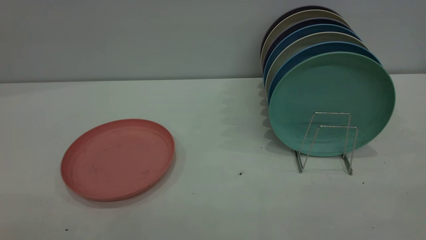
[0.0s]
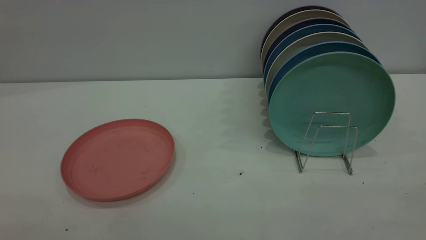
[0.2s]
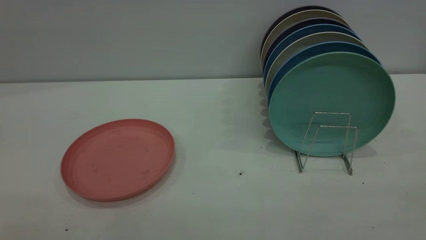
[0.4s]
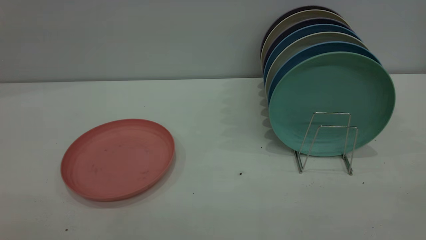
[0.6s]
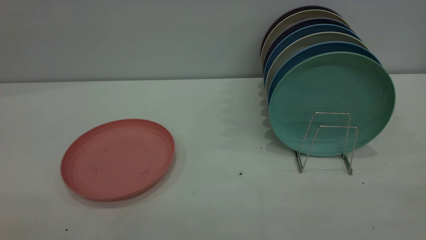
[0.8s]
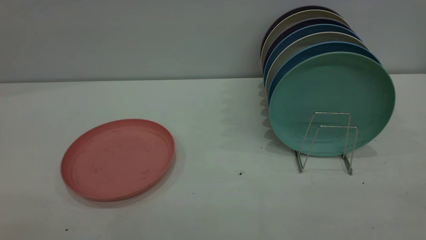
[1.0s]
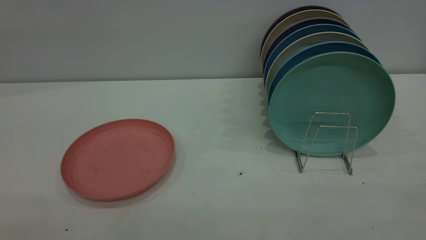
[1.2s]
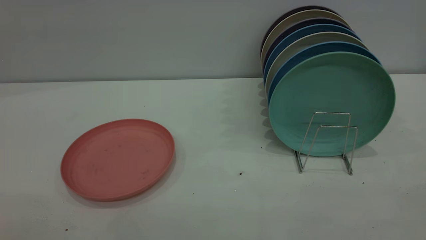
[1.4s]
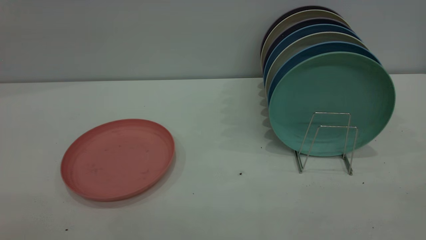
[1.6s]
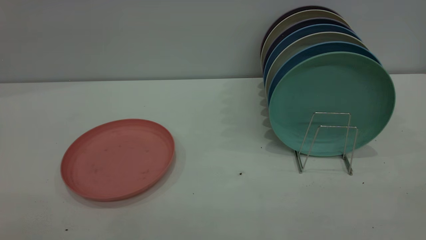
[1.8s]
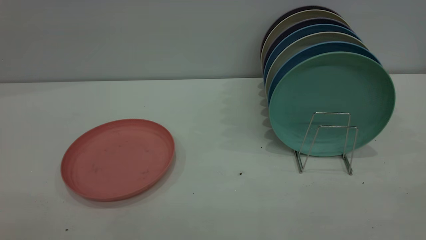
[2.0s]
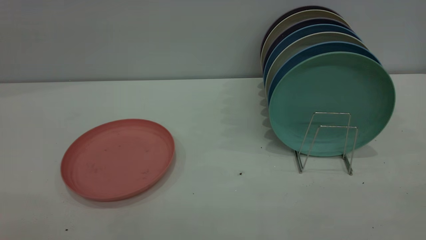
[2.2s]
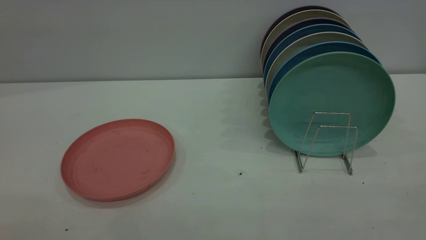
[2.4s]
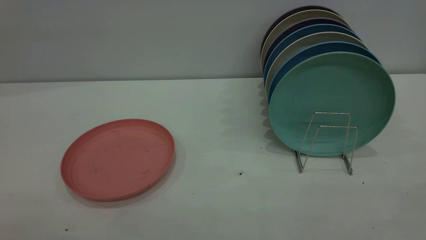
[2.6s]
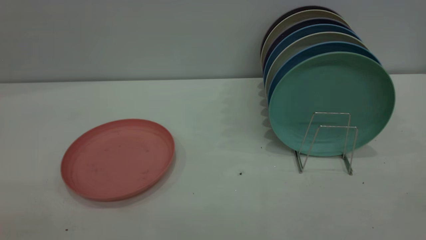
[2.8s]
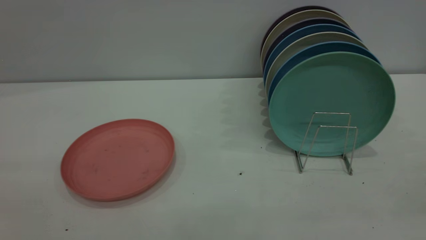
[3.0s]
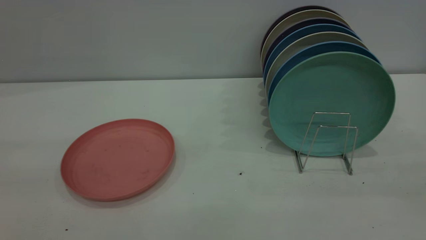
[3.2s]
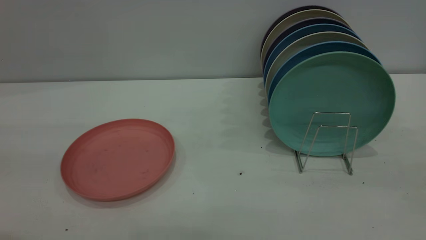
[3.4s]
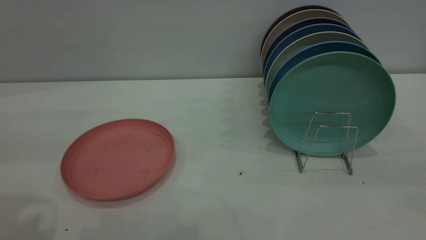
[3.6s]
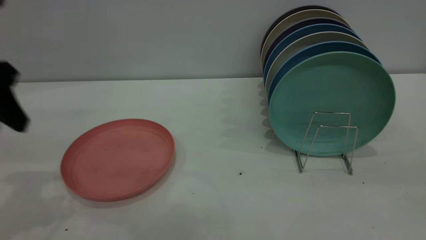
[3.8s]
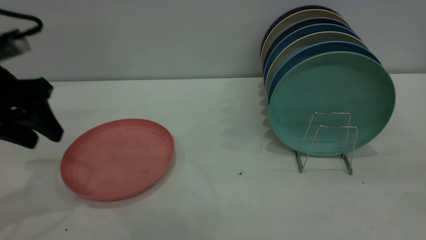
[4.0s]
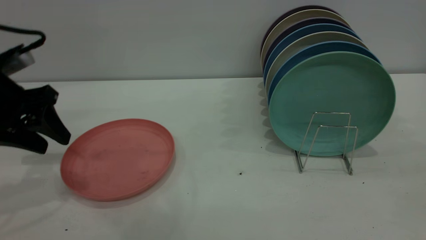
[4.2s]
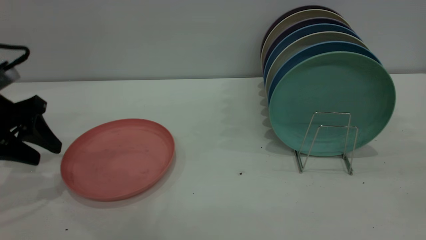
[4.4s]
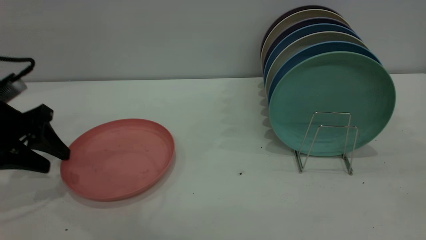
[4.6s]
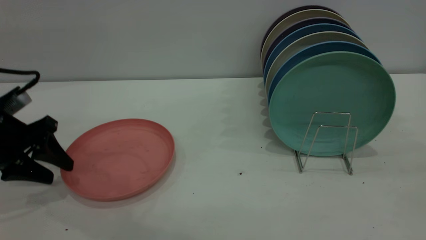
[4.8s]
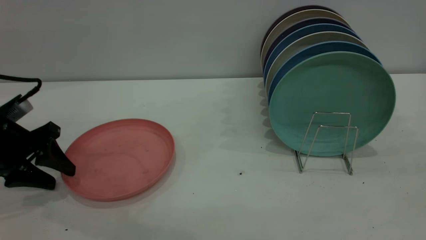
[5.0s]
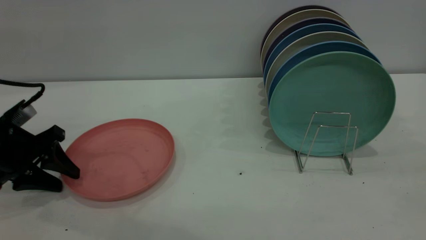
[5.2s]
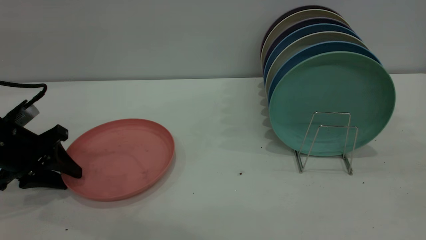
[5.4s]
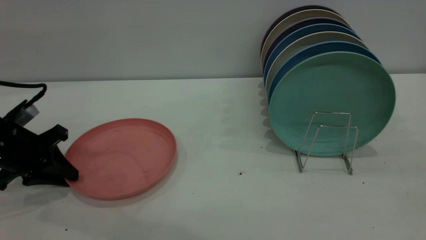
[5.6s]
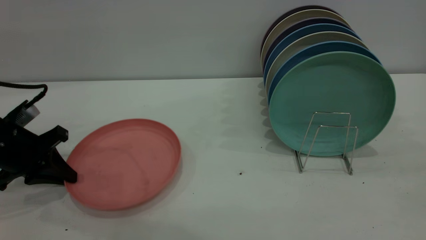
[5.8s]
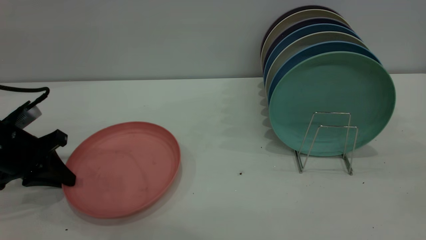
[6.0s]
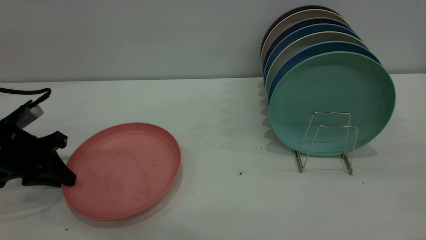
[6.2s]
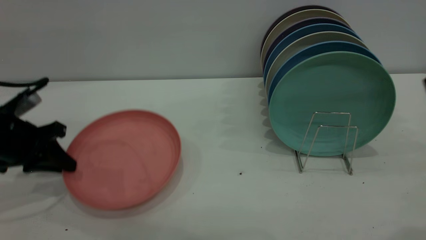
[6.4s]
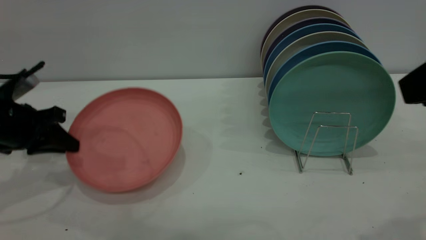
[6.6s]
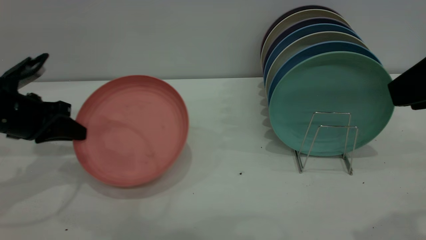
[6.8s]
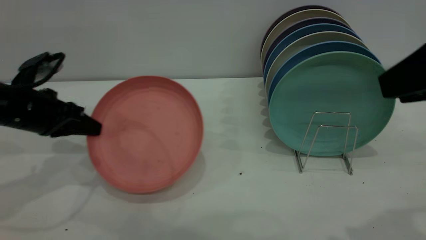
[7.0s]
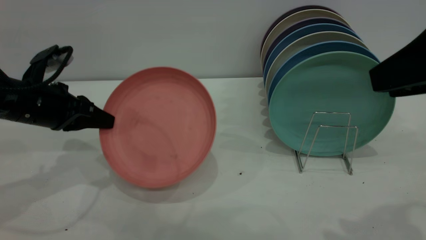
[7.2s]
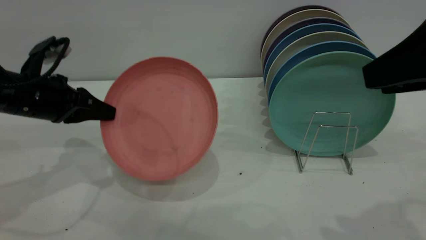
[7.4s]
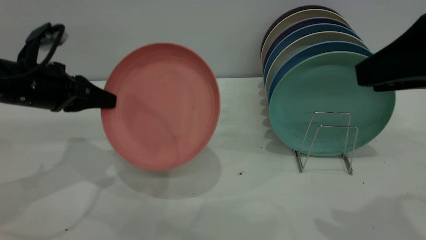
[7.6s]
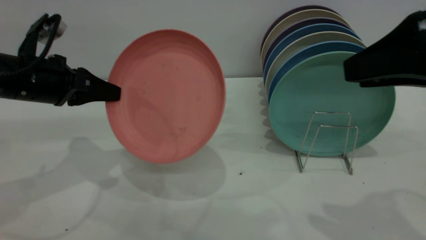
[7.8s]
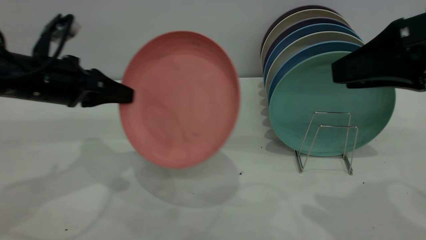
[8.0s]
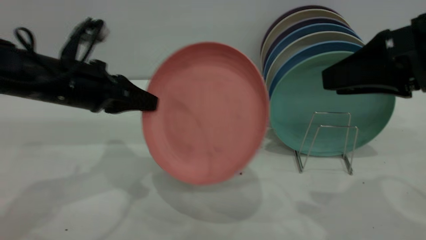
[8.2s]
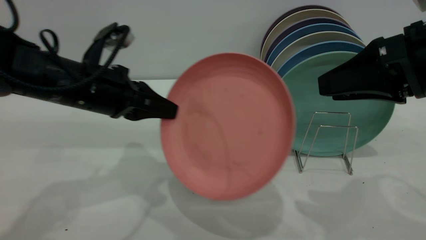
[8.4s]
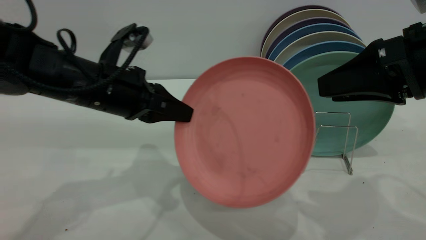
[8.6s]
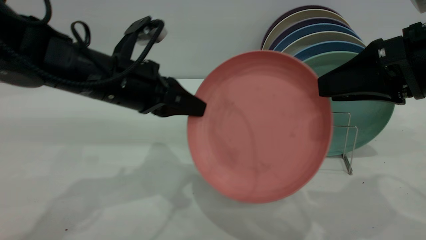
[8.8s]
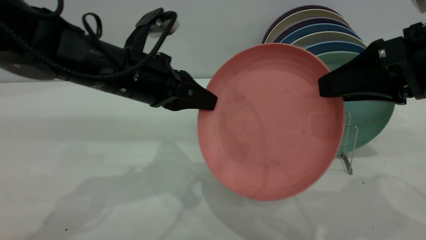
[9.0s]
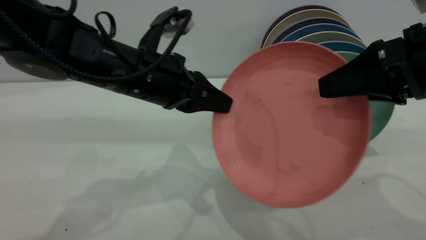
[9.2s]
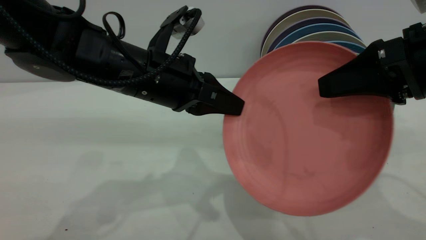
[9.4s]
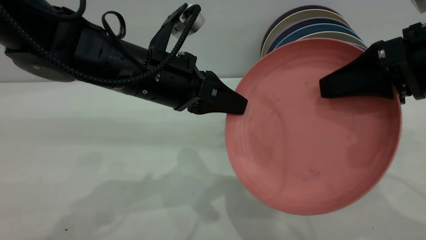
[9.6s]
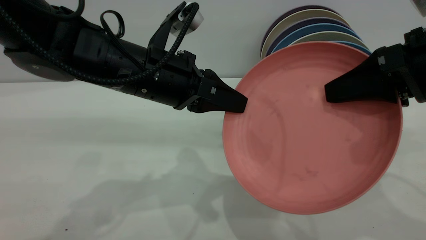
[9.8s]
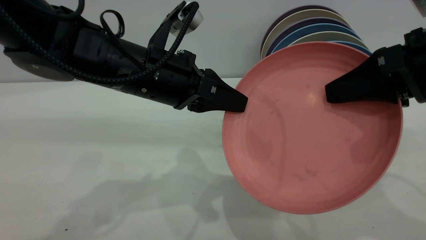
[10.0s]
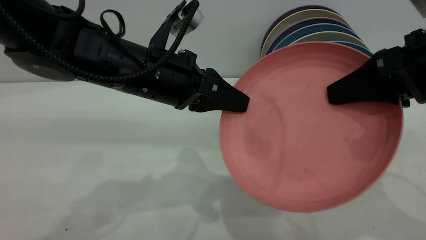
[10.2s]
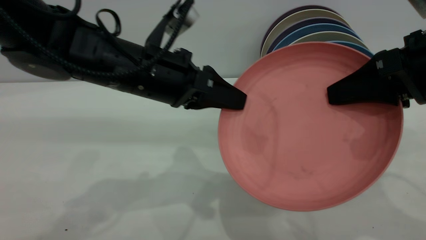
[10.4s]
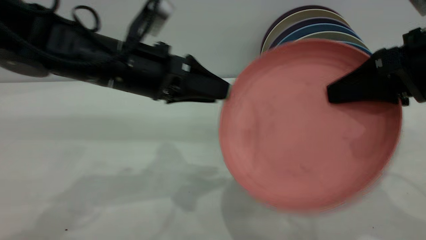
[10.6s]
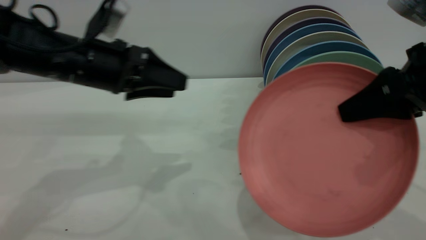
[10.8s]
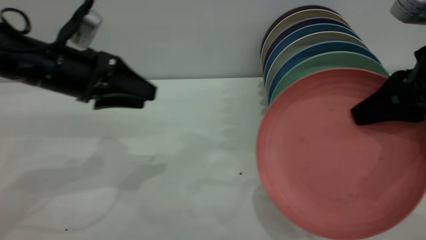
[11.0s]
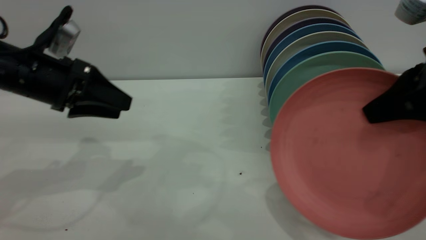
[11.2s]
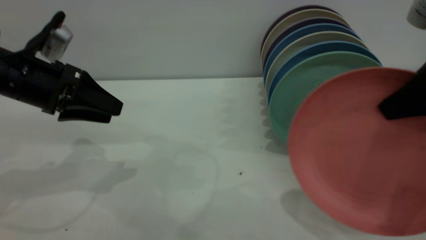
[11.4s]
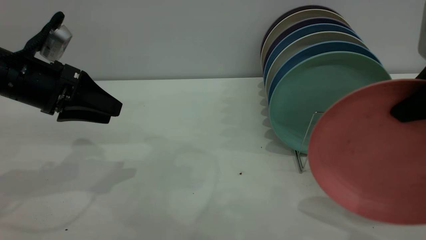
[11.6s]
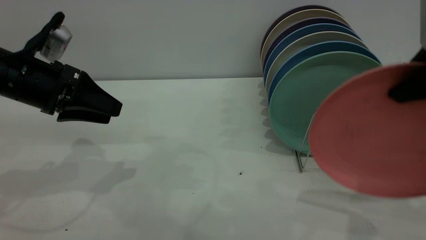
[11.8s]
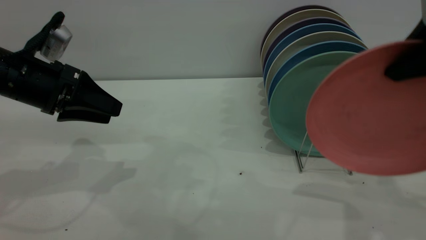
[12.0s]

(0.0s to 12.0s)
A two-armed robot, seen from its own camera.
Task of the whole recording: put the plate on the plate rack.
Step, 0.0s - 6.2s: Pick up the plate with the left gripper.
Step, 6.4s - 10.6s: Pass the plate from the left gripper to the right gripper.
0.0s - 1.6s: Both grippers stay about where they are.
3.0s - 4.4s: The left gripper shifts some 35 cm forward and downward.
4.4s - 6.0s: The left gripper shifts about 5 cm downward, and closes.
6.0s - 7.6s: The right gripper travels forward and downward by approximately 10 cm; the left gripper travels upward and to the right by approximately 10 cm.
7.6s - 9.0s: The left gripper goes approximately 15 cm to the right; the right gripper changes place by approximately 5 cm.
9.0s - 10.4s: The left gripper opens its fingers; the right gripper closes up.
10.4s - 12.0s: The right gripper moves upward, roughly 5 cm; the left gripper is displaced to the left by approximately 15 cm, and opens its fingers.

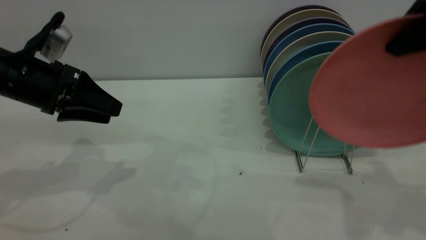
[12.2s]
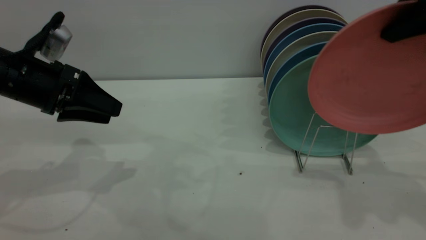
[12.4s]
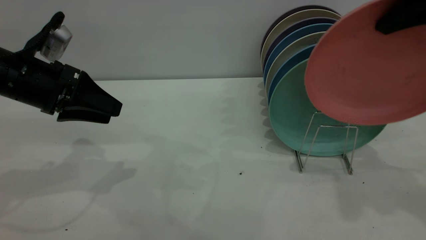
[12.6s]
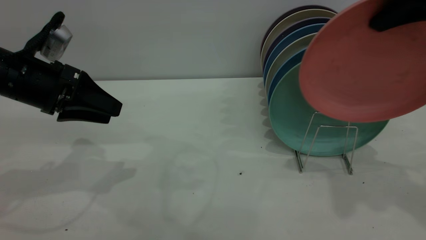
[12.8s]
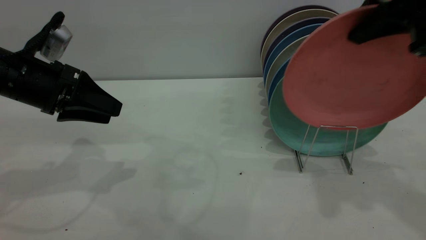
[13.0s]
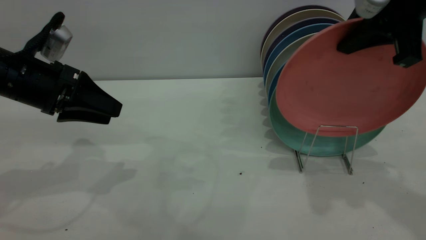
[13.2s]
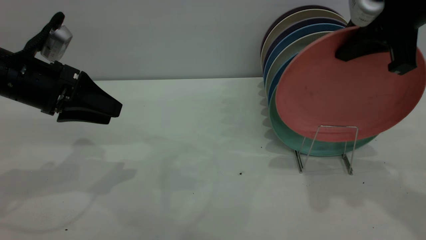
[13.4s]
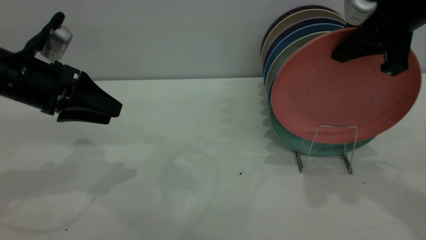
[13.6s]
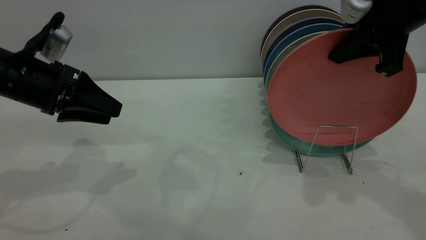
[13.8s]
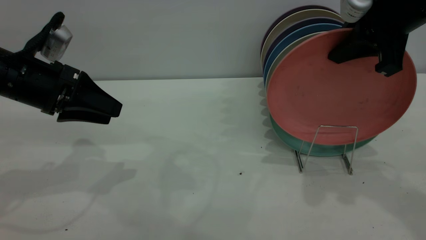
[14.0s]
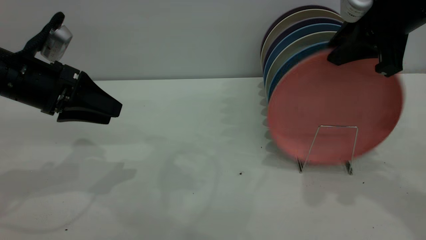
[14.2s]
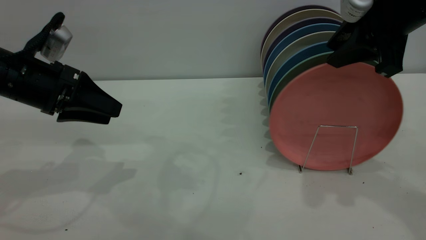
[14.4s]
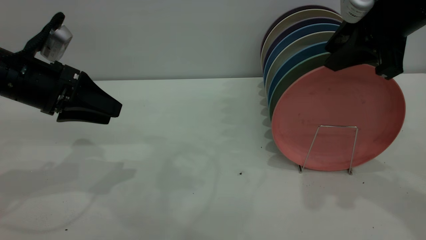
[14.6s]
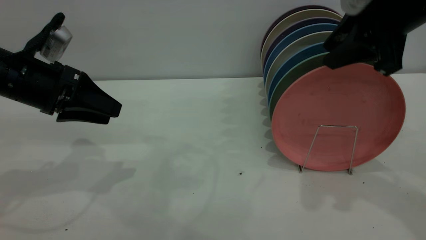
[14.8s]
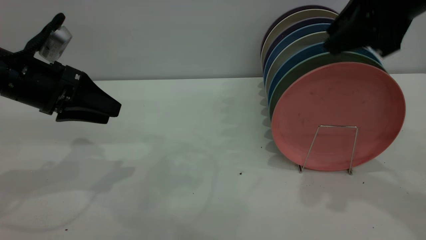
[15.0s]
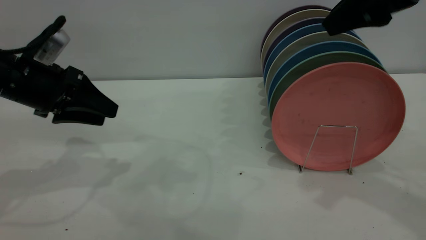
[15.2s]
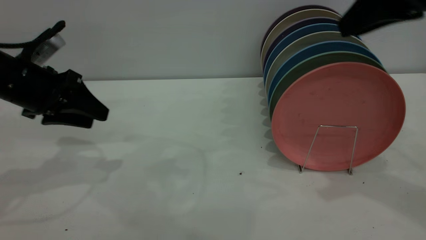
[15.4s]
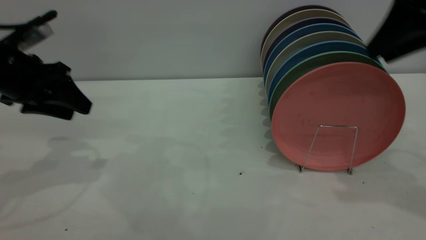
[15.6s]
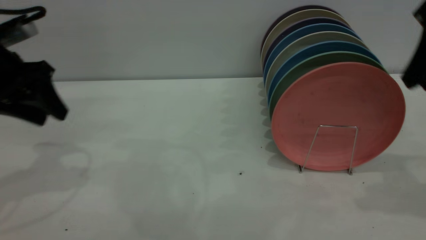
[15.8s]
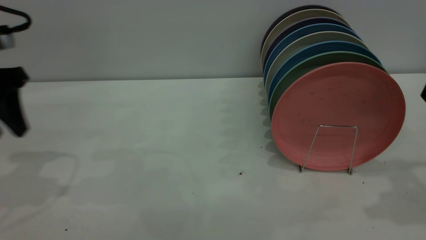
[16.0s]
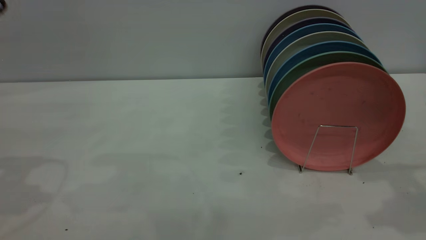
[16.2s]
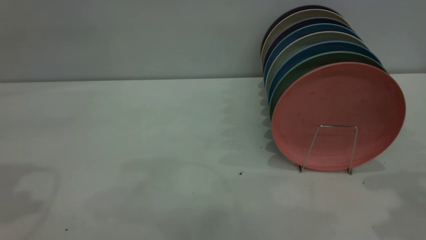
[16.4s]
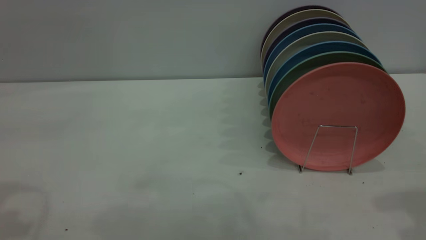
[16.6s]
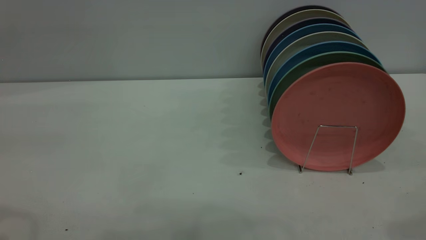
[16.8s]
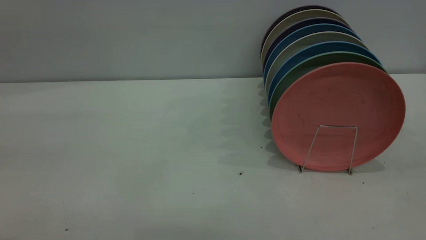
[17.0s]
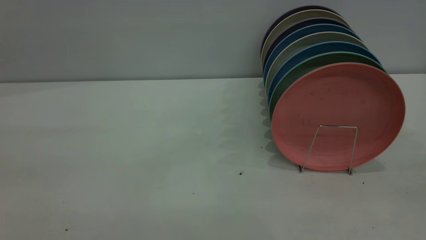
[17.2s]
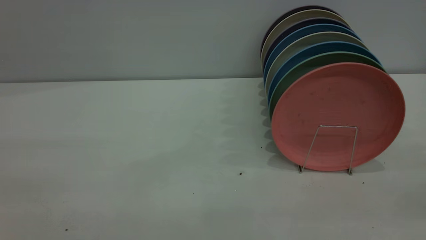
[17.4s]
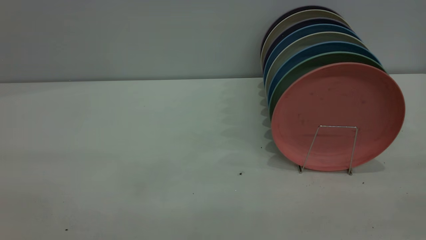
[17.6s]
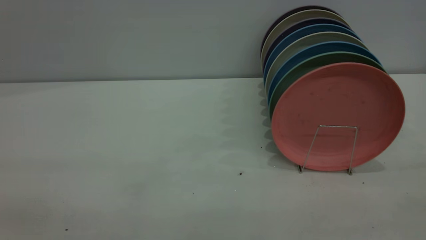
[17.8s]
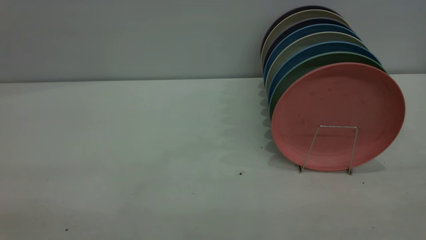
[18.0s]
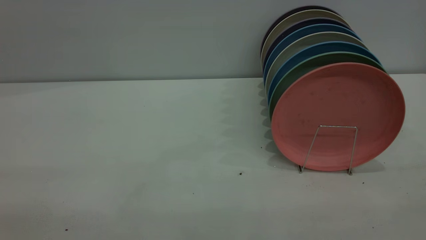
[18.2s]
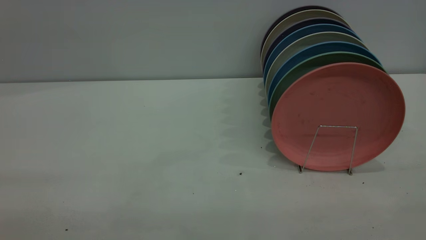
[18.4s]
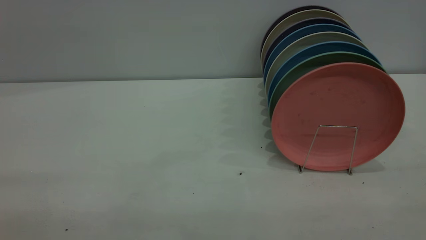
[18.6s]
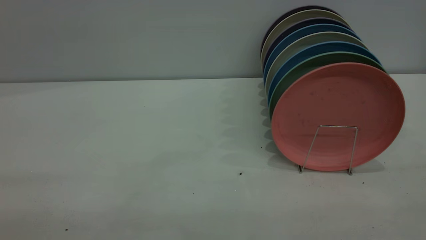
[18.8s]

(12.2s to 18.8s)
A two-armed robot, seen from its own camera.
Task of the whole recording: put the plate on the plate rack.
Step, 12.2s - 15.6s: Place the plate on the shelf.
12.2s - 13.8s: The right gripper heads forward, covering about 5 cm.
13.8s - 15.4s: The right gripper opens.
15.4s - 17.2s: The right gripper shifts about 25 cm backward. The left gripper moves backward and upward, some 30 cm.
